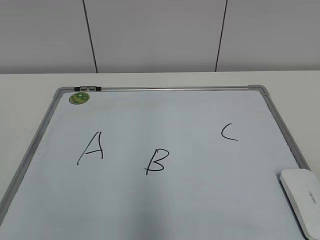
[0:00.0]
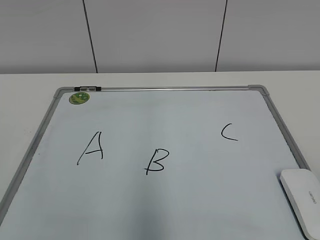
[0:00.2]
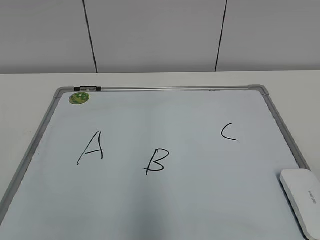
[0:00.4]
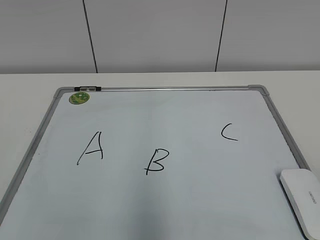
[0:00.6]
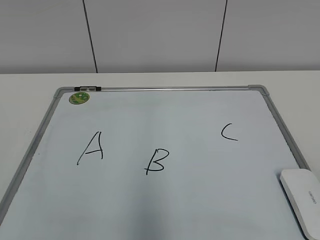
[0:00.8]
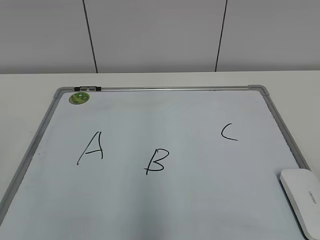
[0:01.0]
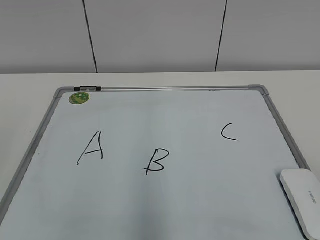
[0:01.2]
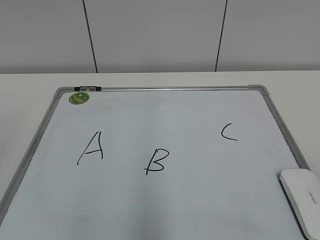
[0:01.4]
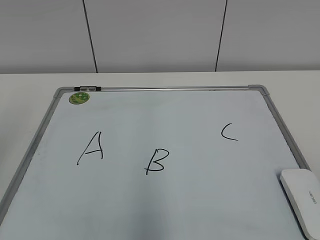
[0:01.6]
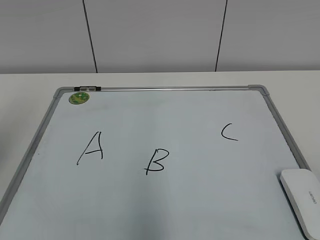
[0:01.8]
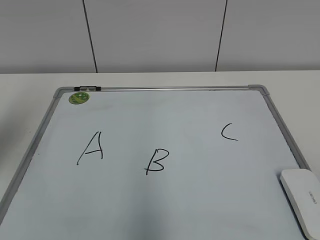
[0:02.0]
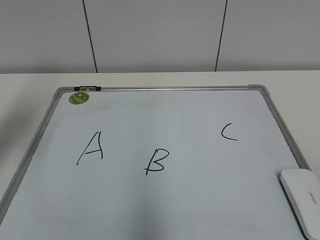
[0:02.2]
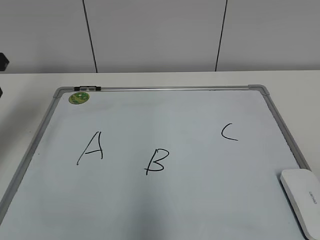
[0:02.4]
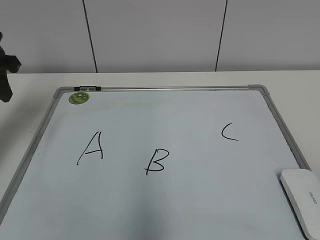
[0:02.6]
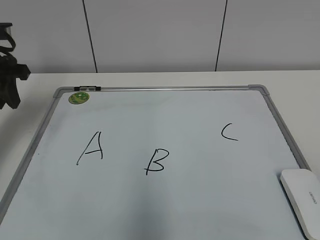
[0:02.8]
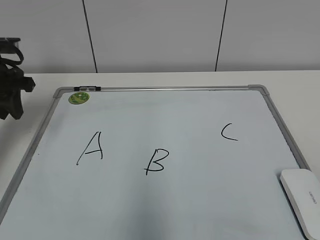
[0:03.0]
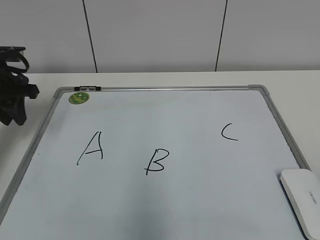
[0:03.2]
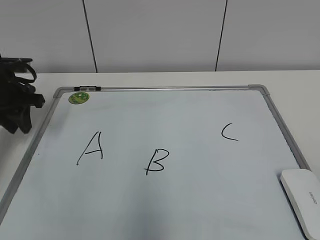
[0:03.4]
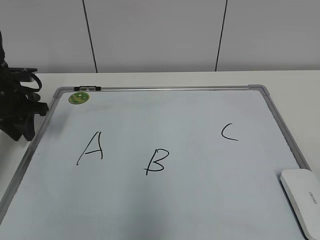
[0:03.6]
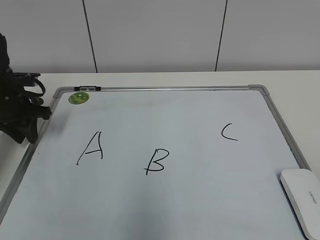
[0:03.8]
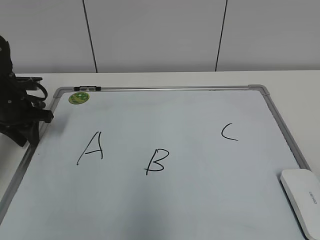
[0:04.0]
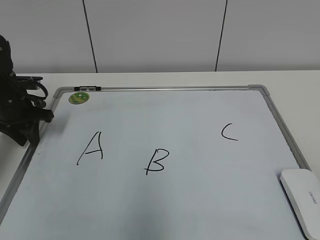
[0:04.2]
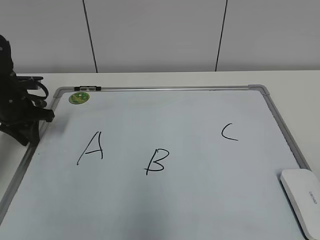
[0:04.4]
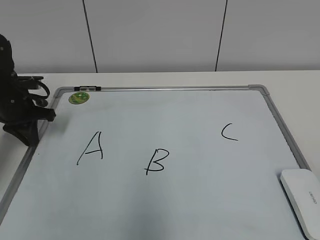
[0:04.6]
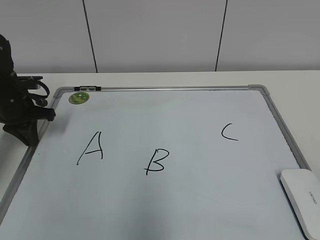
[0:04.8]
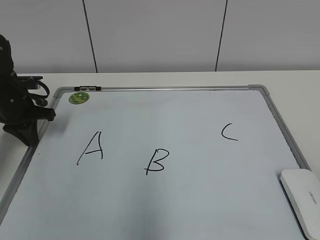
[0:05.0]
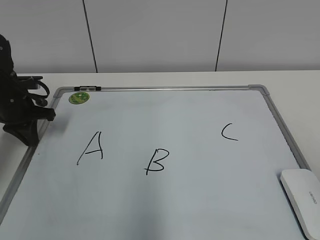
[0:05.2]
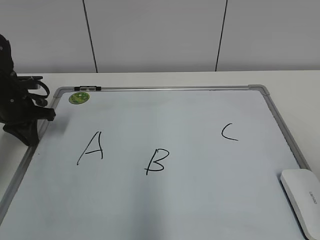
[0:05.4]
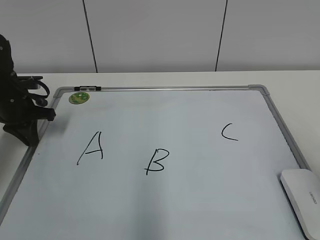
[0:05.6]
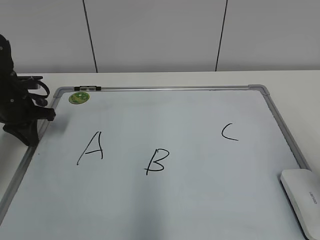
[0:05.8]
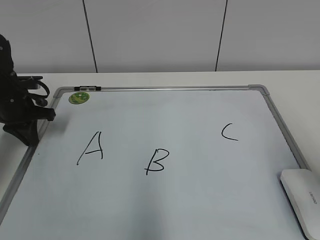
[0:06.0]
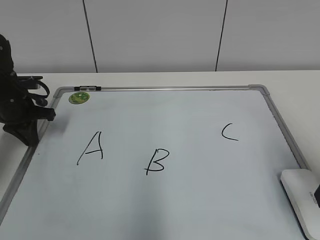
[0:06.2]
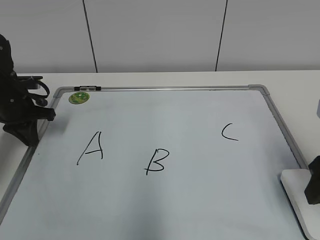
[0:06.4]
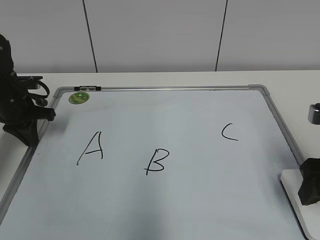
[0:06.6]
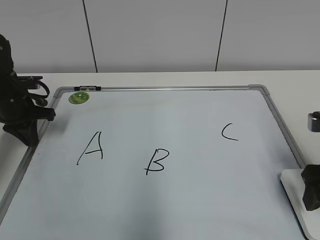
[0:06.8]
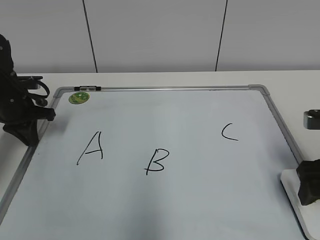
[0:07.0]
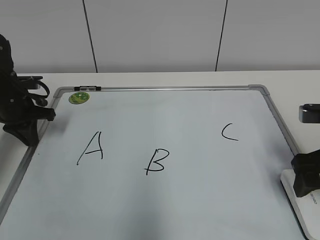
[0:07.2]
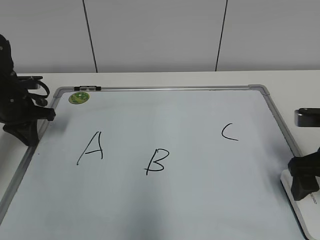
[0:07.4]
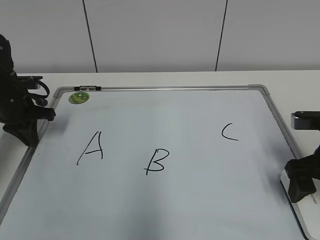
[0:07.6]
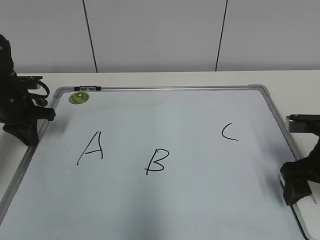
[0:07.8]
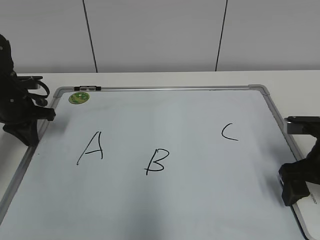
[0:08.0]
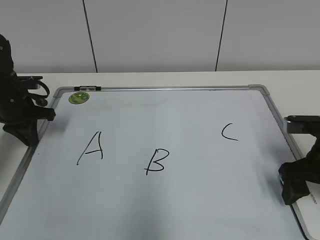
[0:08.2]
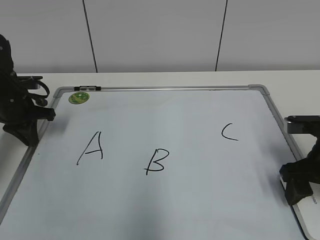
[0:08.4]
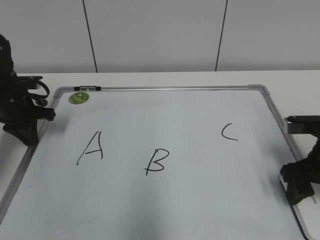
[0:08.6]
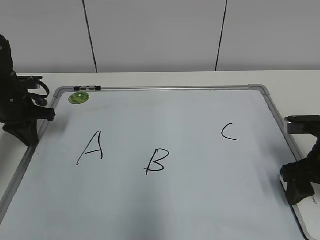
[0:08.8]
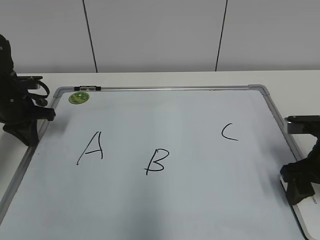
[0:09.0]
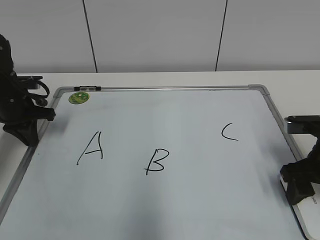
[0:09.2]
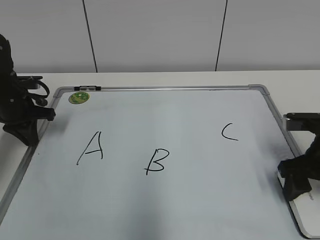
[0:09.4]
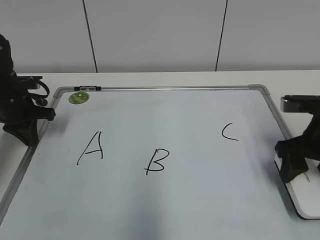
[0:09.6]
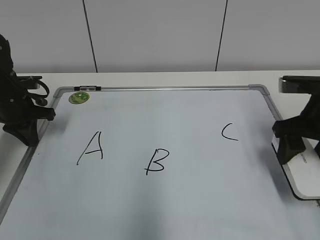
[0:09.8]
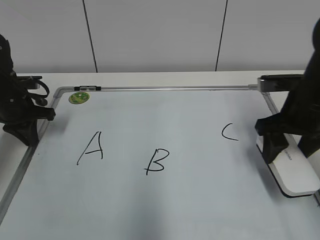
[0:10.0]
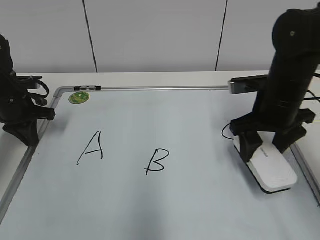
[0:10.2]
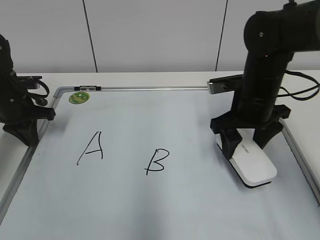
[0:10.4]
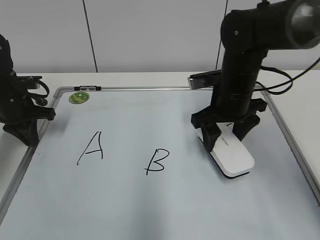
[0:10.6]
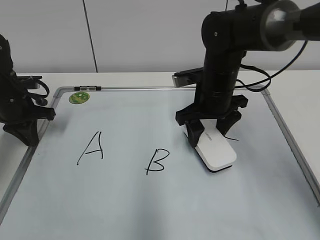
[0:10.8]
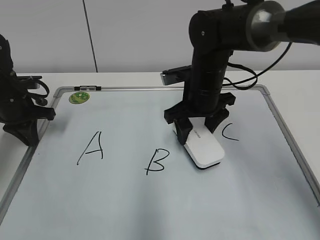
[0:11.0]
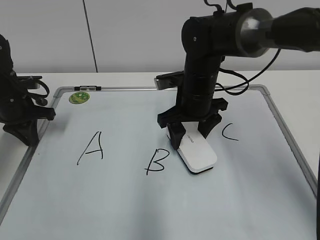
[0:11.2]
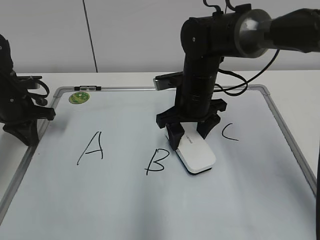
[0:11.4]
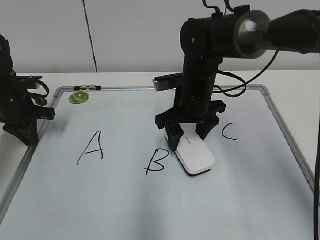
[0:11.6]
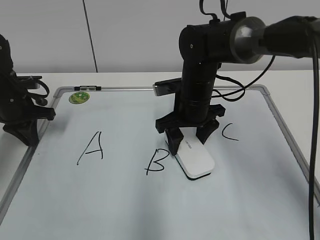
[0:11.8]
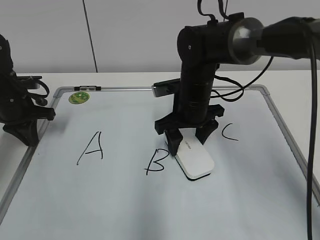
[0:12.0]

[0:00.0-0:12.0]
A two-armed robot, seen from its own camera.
Task of the whole recording: pick up the eraser on the blackboard and erase the letter "B".
Step, 0:00.0 to 0:04.6: Hold the drawing board steady with your left hand.
Step, 0:04.8 to 0:09.2: Grab the eraser with your right hand.
0:01.6 to 0:03.0: The left gripper is displaced forward and downward by roughly 25 cm.
0:03.0 to 0:04.4: The left gripper goes some 10 cm downward.
0:04.4 to 0:06.0: The right gripper heads forward, covering approximately 15 cm.
0:06.0 to 0:07.6: The right gripper shifts roughly 15 cm forward and downward, and opens.
0:07.6 to 0:09.0: The right gripper closes its fingers.
0:09.0 to 0:10.4: The right gripper is displaced to the left and forward by roughly 15 cm.
0:10.4 to 0:12.0: The right gripper heads to the left, covering approximately 10 cm.

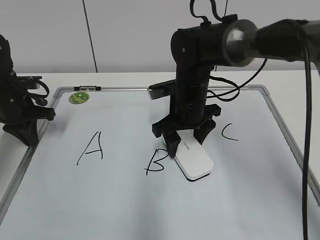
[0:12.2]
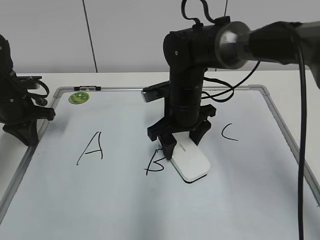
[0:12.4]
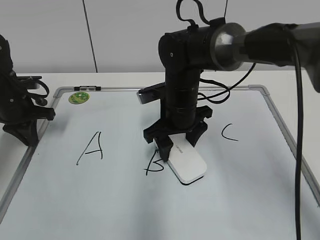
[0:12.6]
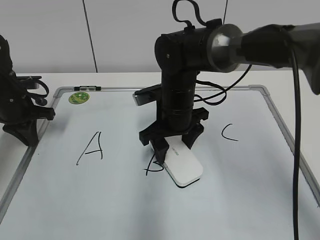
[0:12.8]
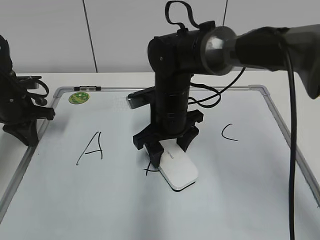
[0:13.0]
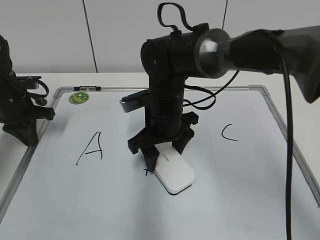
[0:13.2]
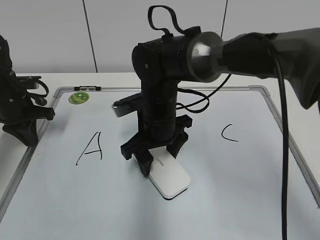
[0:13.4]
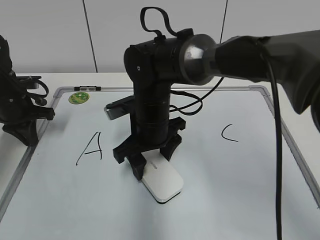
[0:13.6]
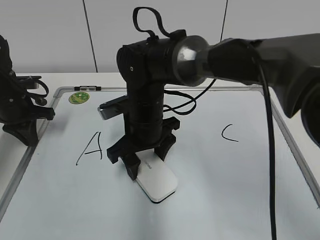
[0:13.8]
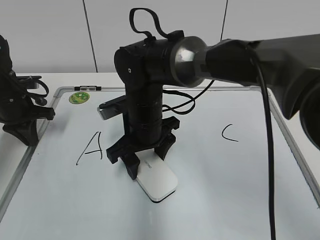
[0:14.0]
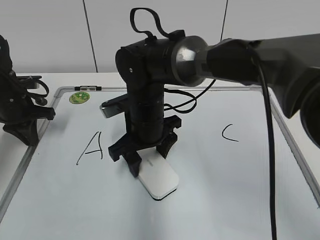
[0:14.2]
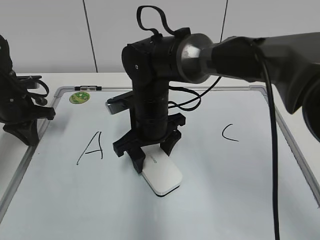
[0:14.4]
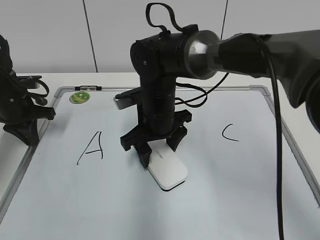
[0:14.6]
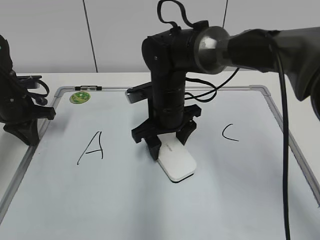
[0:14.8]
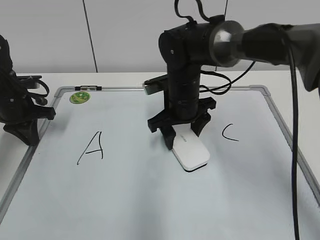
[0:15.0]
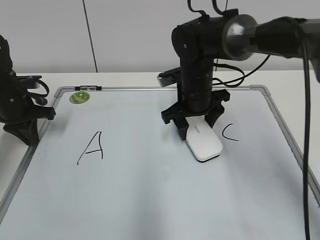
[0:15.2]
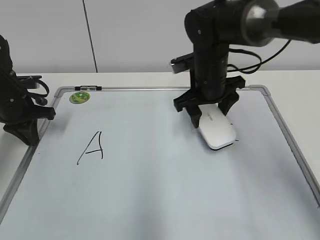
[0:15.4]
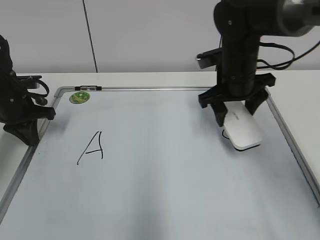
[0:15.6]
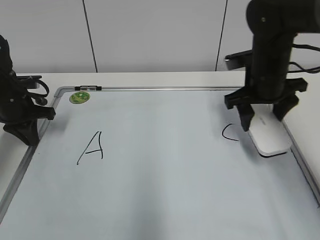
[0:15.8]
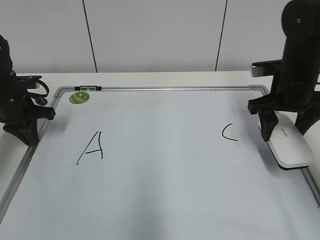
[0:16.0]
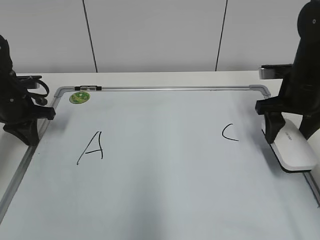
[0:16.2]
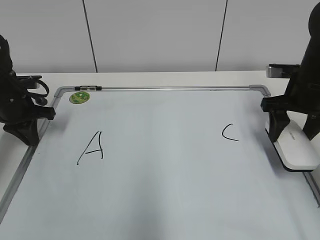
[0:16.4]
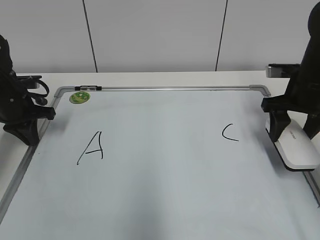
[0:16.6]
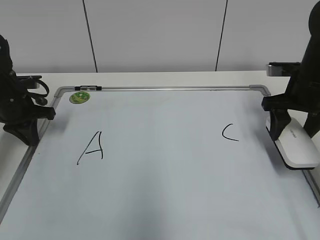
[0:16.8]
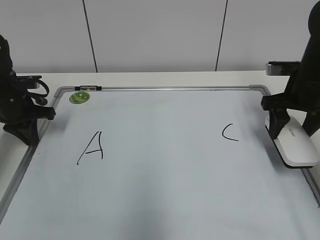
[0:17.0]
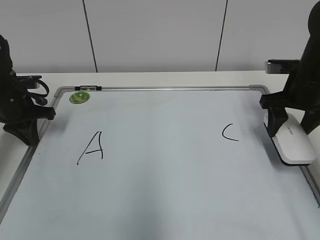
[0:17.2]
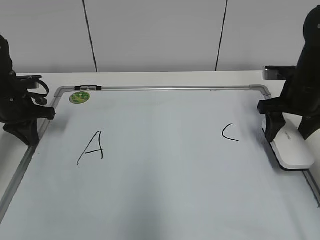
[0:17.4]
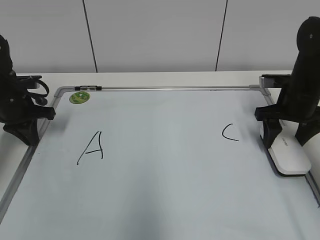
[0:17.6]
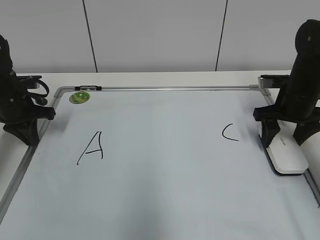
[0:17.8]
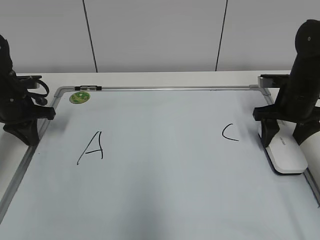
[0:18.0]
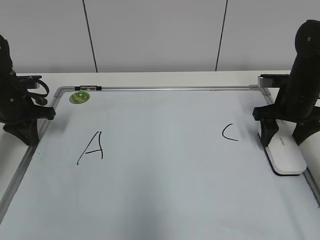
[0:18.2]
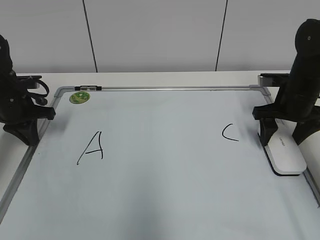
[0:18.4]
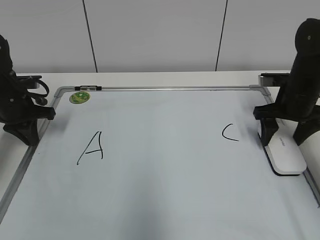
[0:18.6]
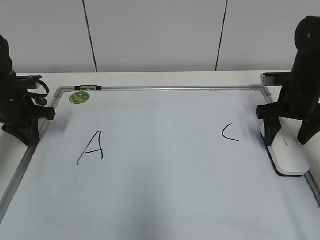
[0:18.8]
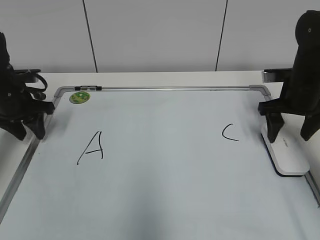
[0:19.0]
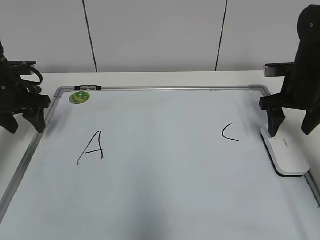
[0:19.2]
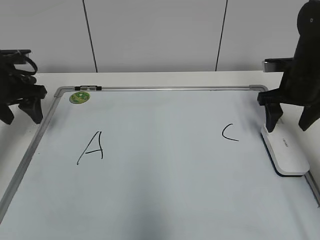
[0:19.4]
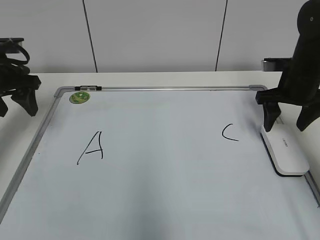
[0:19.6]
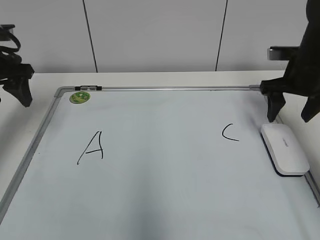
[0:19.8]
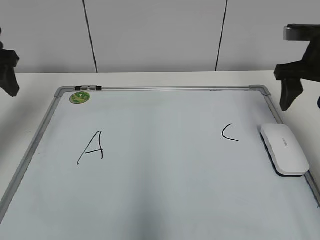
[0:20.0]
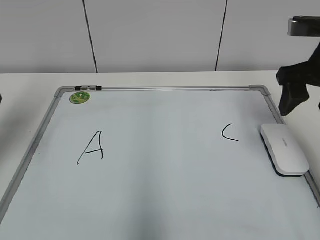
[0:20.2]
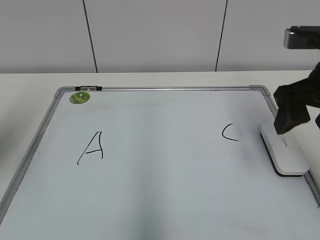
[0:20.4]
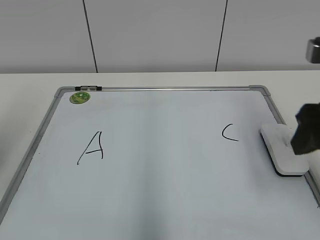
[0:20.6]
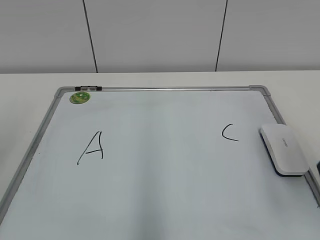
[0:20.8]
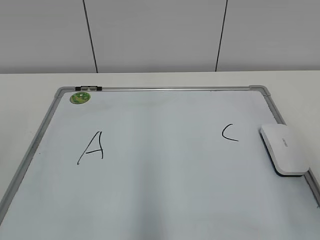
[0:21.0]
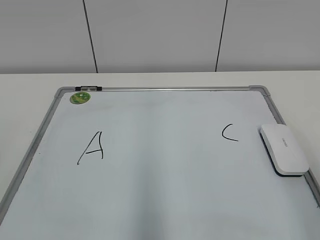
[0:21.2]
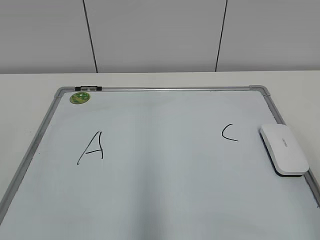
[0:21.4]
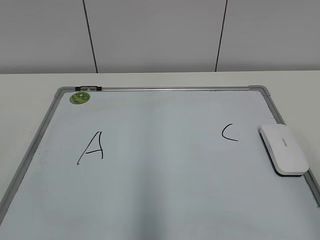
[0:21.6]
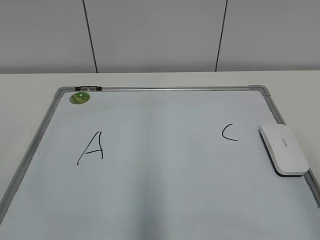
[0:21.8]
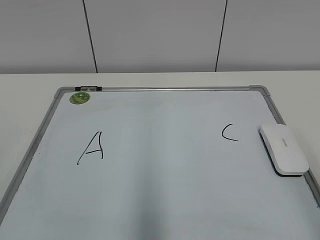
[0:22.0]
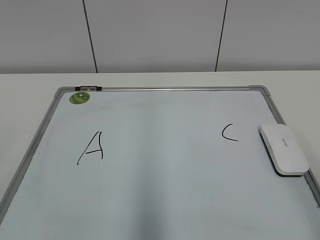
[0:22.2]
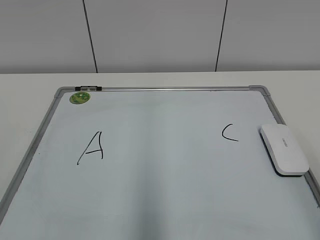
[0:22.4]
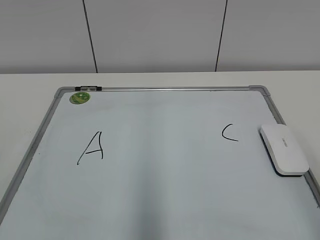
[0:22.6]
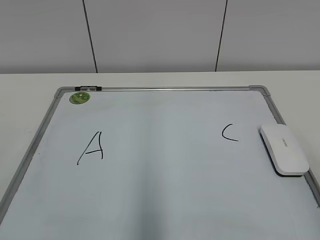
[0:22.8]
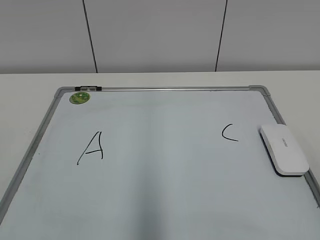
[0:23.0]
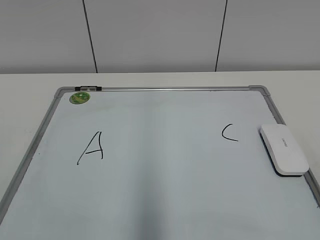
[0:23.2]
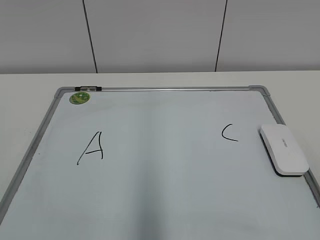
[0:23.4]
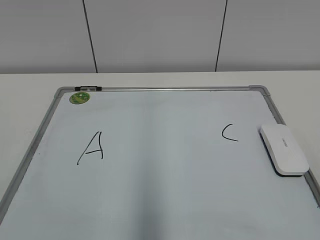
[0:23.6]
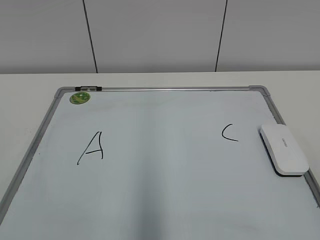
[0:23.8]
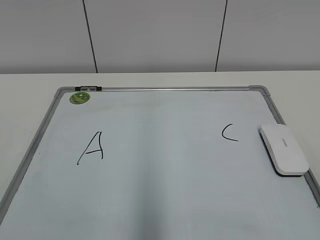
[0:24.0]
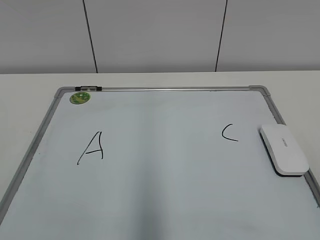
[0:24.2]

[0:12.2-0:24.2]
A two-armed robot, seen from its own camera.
Task of the whole recording: pick up the eraser on the blackboard and erase the letter "B".
Step, 0:12.2 to 0:14.8: Erase the letter B with your right hand.
Step, 0:15.2 to 0:18.2: Put down the eraser with your right hand.
0:12.2 to 0:13.8: The right gripper travels to the left by some 10 cm.
0:13.8 to 0:15.2: The right gripper goes roughly 10 cm to the right and forward.
0:15.2 to 0:16.6: The right gripper goes roughly 20 cm to the right.
0:16.6 to 0:18.2: The grippers move only a little.
0:18.2 to 0:19.8: The left gripper shifts approximately 10 cm upward, and opens; the right gripper moves upward, roughly 5 cm.
0:19.8 to 0:21.2: The grippers both shift backward by some 35 cm.
